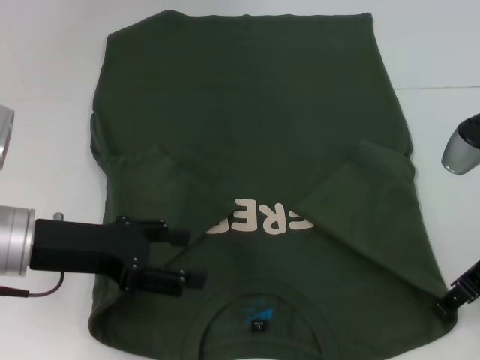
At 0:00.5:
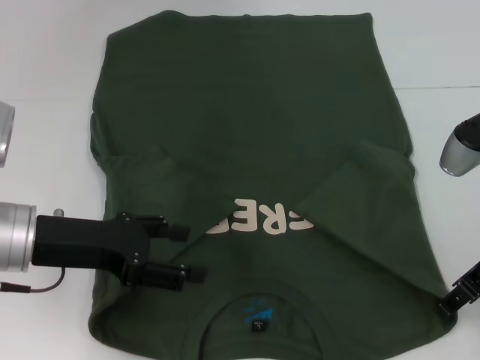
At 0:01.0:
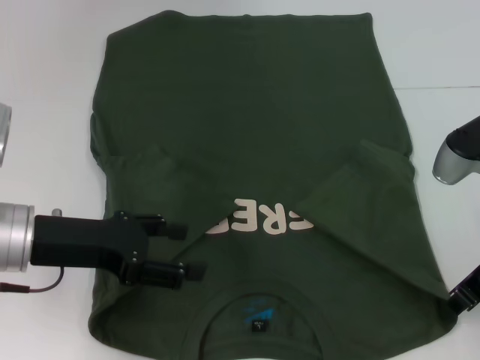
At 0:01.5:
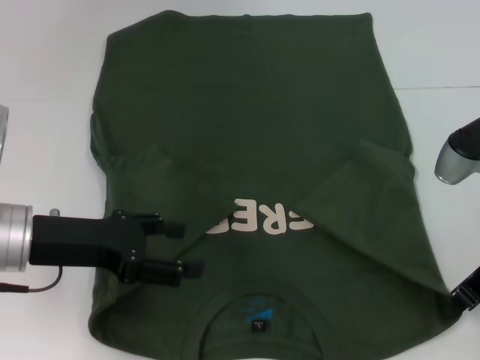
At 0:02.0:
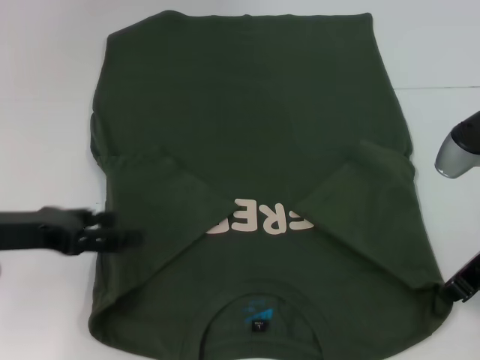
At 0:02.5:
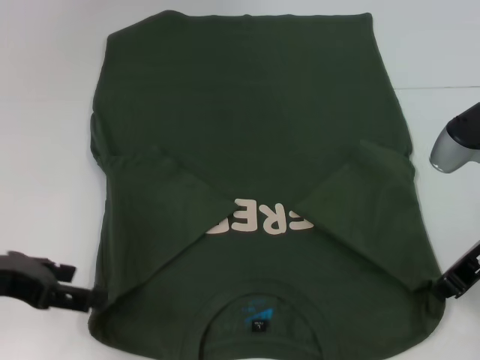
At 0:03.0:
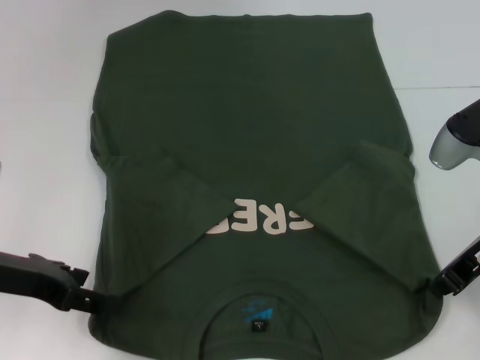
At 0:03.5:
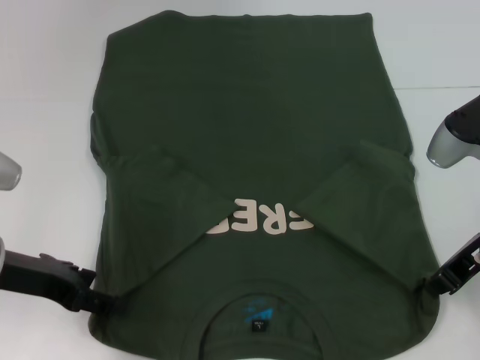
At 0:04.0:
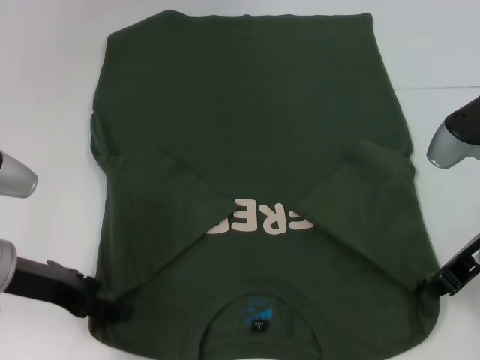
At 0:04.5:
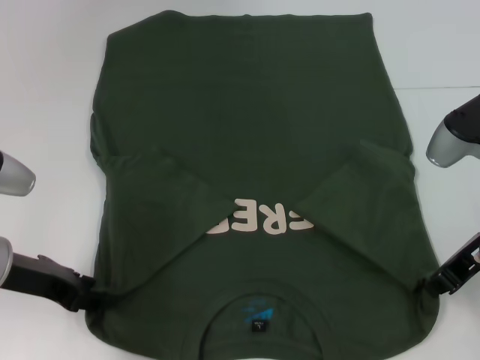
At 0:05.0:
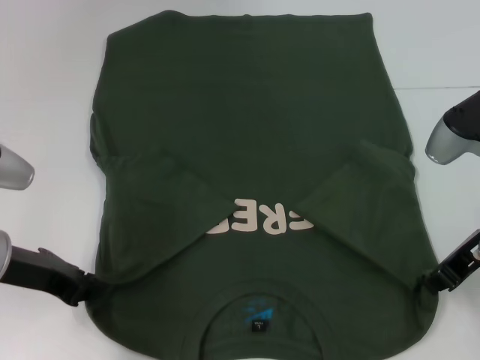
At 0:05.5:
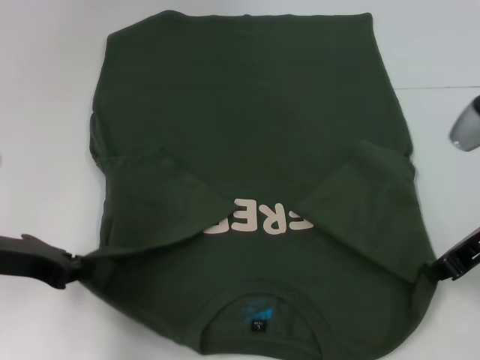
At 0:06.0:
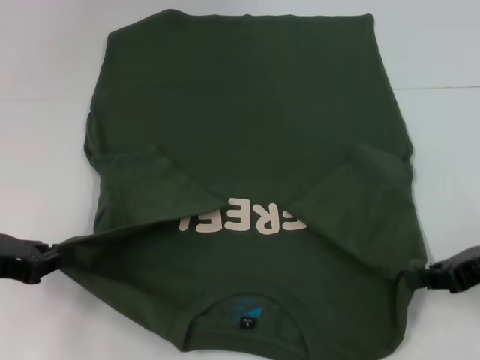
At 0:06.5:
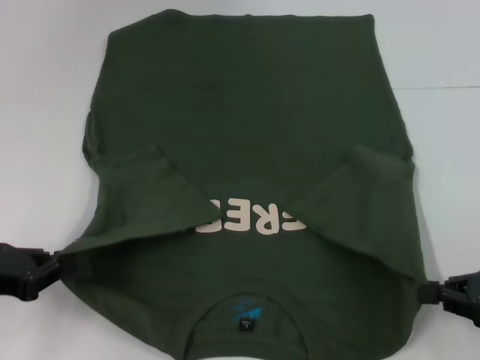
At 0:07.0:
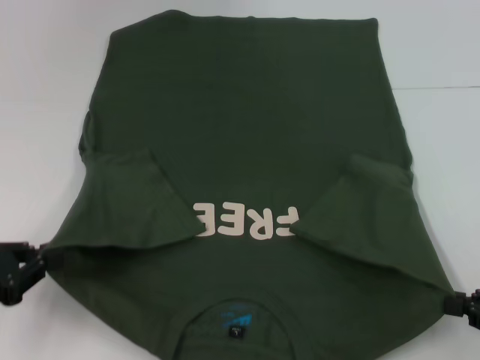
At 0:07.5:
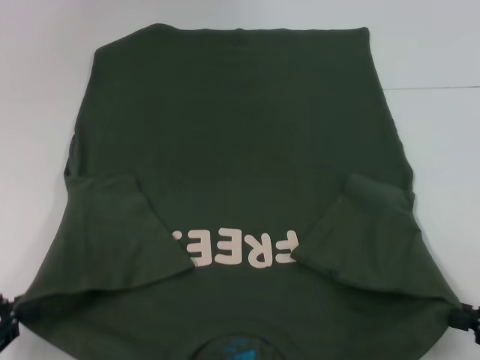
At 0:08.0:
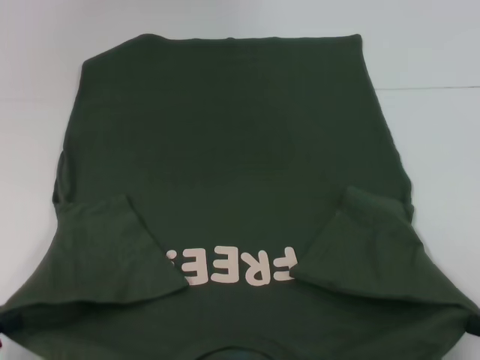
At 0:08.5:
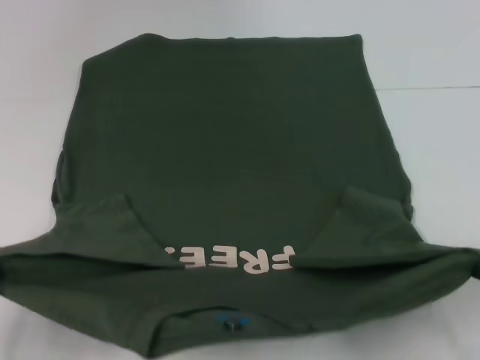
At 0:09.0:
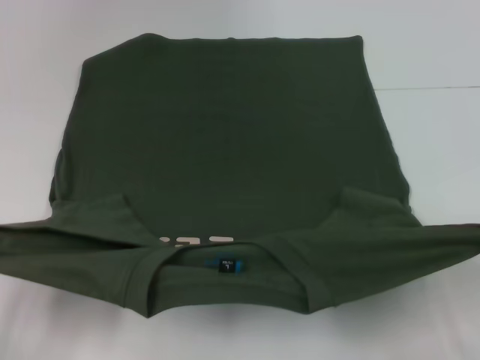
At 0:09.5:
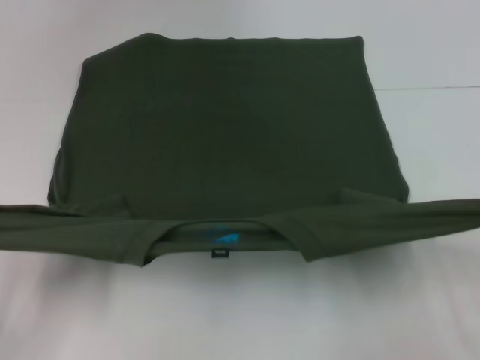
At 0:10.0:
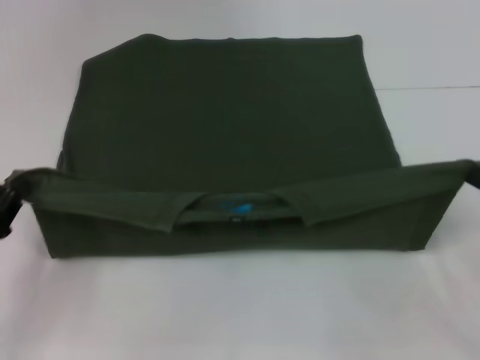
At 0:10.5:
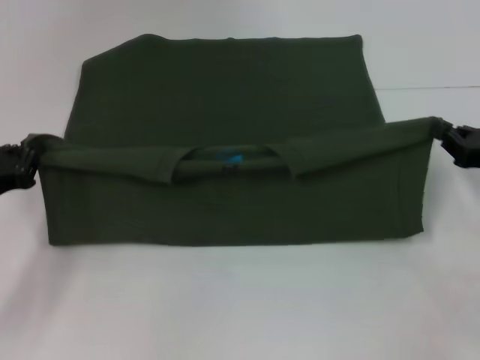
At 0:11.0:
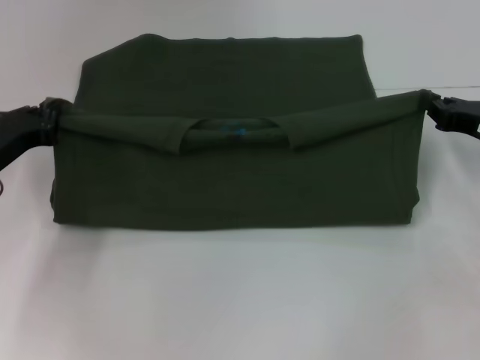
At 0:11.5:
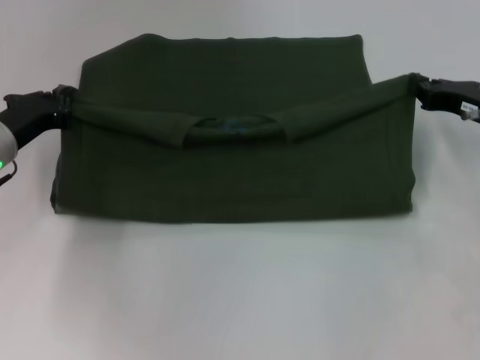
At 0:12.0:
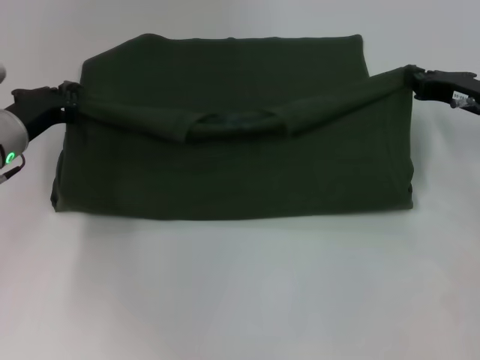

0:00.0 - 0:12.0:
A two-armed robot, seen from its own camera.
Step, 0:02.0 - 0:05.0: Grab the bottom left corner with your left hand.
0:00.0 - 0:02.0: The right gripper closes its fingers, while the left gripper shifts some 5 cm to the left.
0:04.0 - 0:06.0: The left gripper shifts about 5 cm to the left, and closes. Meanwhile the right gripper goes about 5 cm to the right.
0:06.0 - 0:08.0: The left gripper moves backward, about 15 cm, while the right gripper shifts some 15 cm backward and to the right.
0:08.0 - 0:10.0: The two grippers go about 10 cm forward.
0:10.0 - 0:12.0: The left gripper heads forward and to the right, covering approximately 20 cm, while the right gripper is displaced forward by roughly 15 cm.

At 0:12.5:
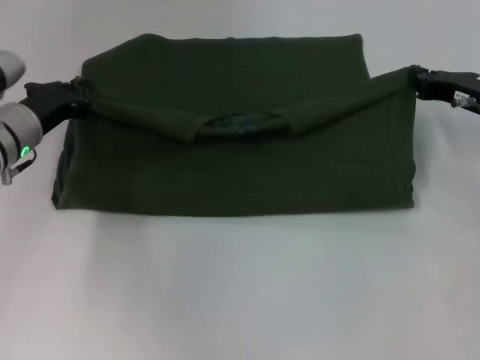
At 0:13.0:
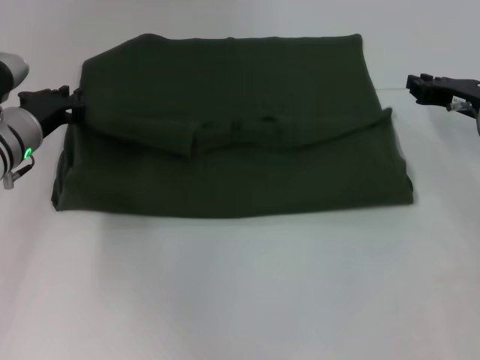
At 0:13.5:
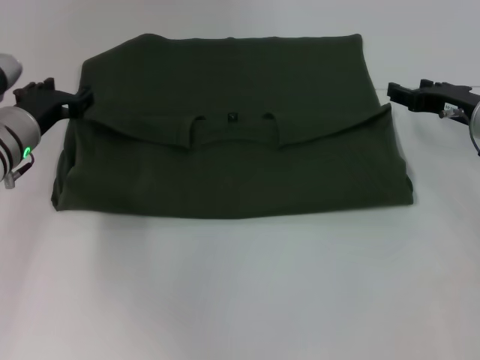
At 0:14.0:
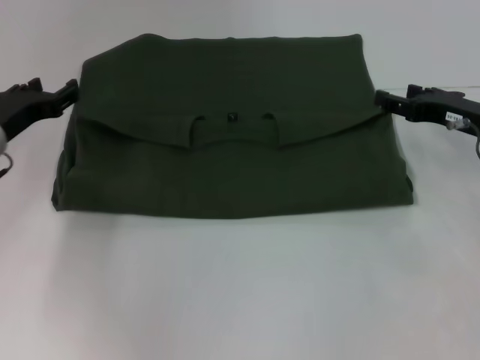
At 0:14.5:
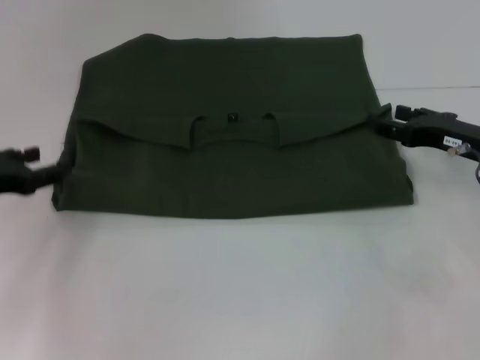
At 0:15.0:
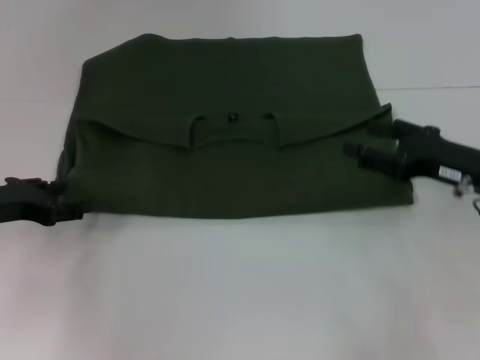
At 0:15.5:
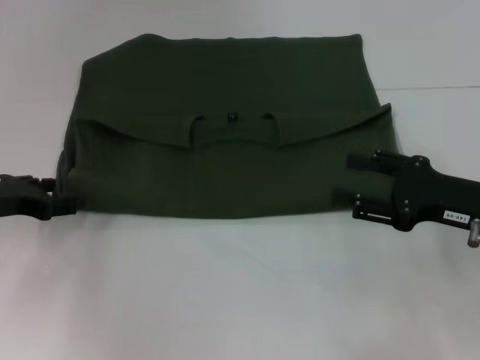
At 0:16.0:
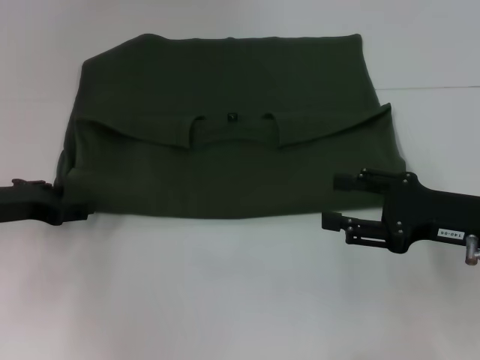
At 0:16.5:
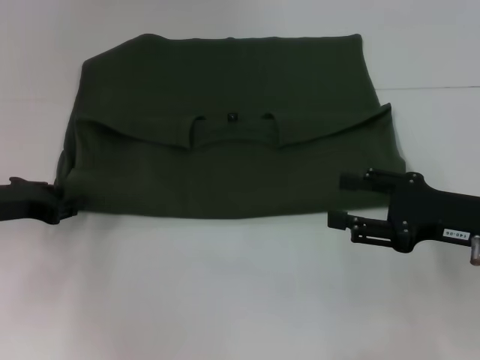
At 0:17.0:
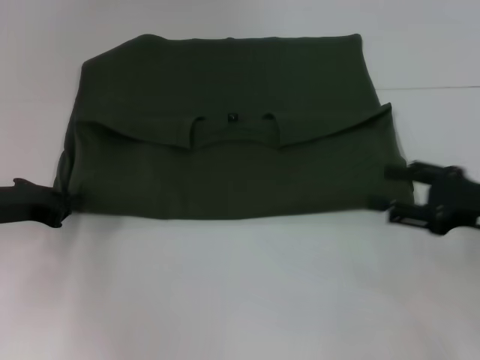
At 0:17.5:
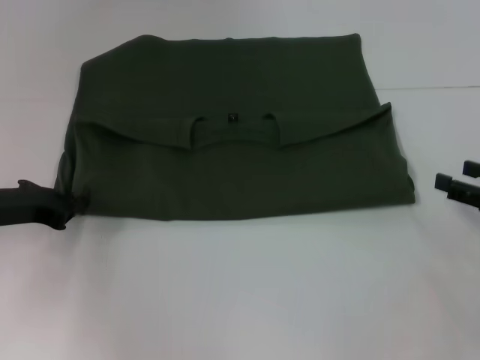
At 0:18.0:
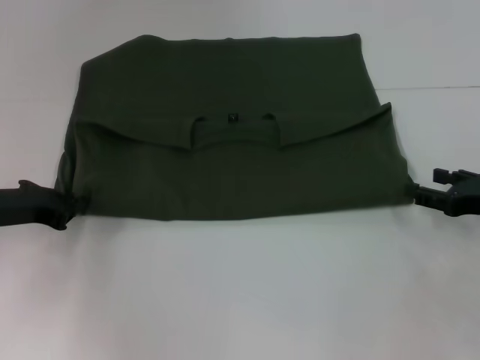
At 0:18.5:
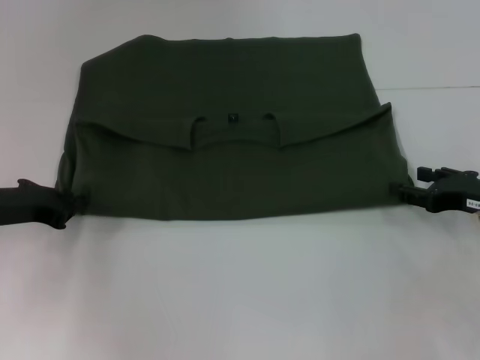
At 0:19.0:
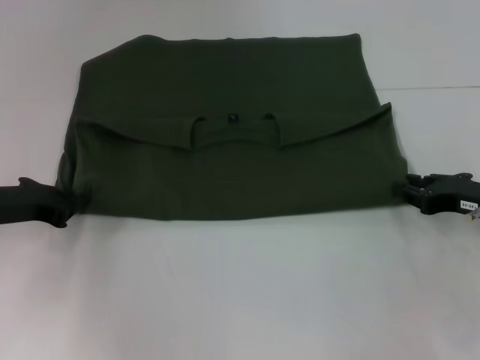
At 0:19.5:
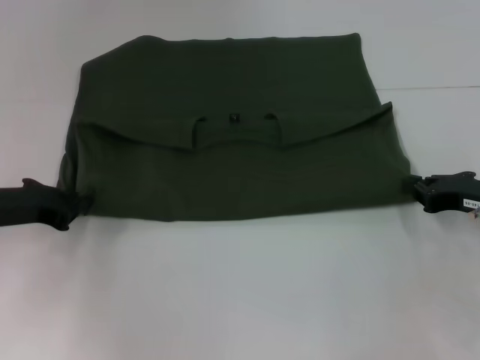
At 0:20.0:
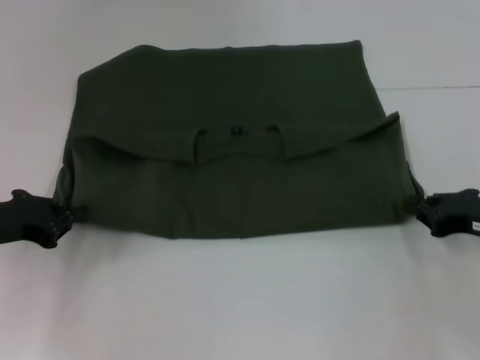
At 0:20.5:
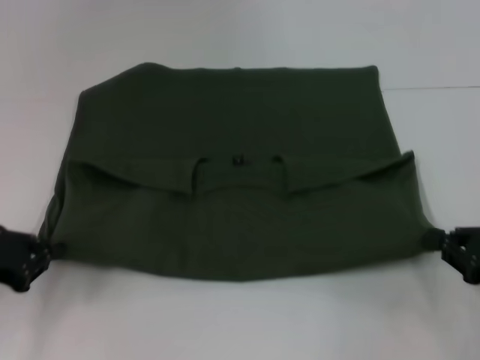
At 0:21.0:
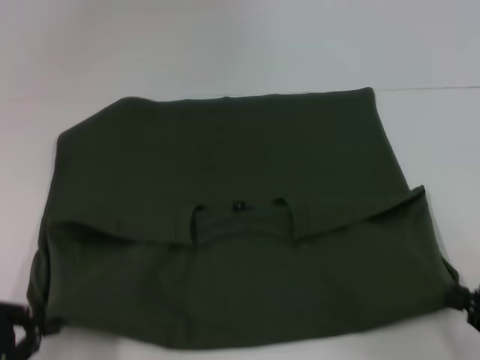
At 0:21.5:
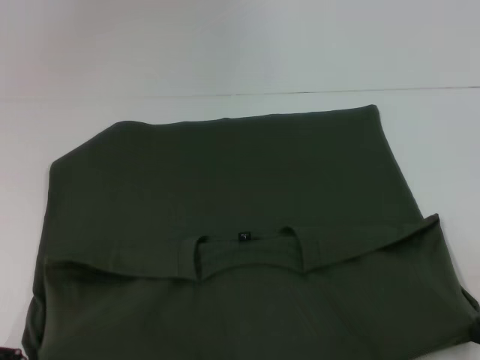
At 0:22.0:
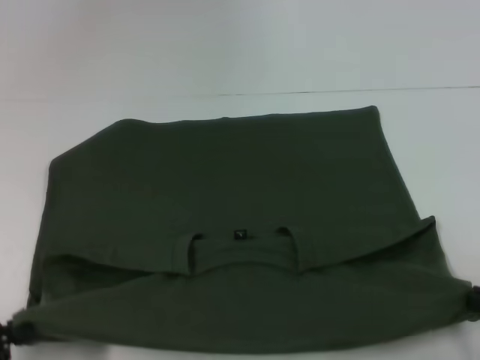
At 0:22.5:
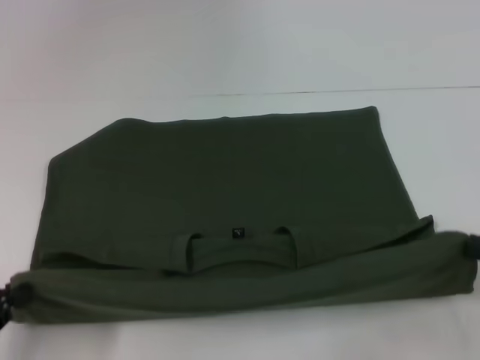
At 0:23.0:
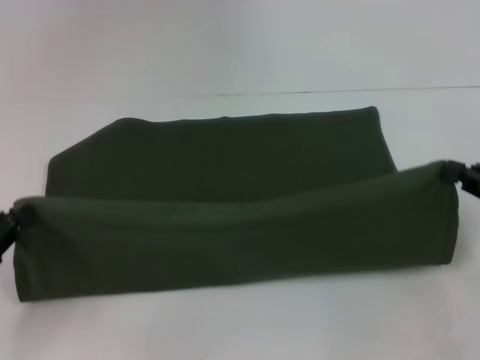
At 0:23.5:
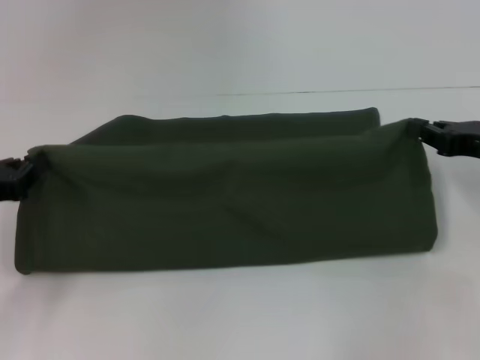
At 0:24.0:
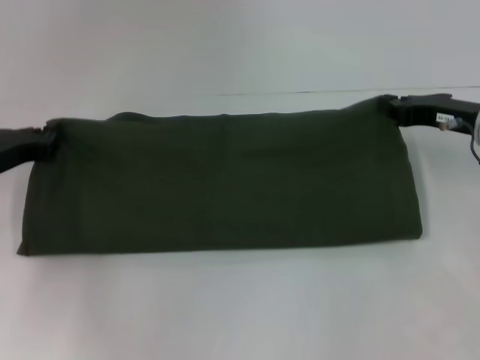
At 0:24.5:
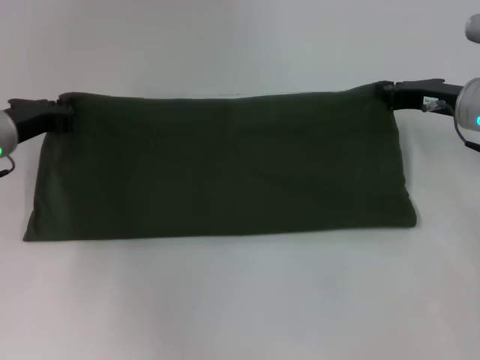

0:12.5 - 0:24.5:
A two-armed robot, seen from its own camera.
Step, 0:14.0 - 0:21.0: Pull the clothes with your left hand.
Step, 0:14.0 - 0:21.0: Pull the clothes with your right hand.
0:12.5 - 0:14.5: The right gripper opens. The left gripper shifts about 10 cm to the left and backward, and opens.
0:14.5 - 0:16.5: The right gripper goes some 10 cm backward.
0:16.5 - 0:18.5: The left gripper closes. Meanwhile the right gripper moves approximately 5 cm.
0:18.5 - 0:20.5: Both grippers move backward, some 10 cm. The right gripper closes up.
0:20.5 - 0:22.5: The left gripper goes roughly 10 cm backward, while the right gripper travels backward and back again, some 10 cm each way.
0:22.5 - 0:24.5: The right gripper heads forward and to the left, covering some 25 cm. Meanwhile the left gripper shifts roughly 25 cm forward.

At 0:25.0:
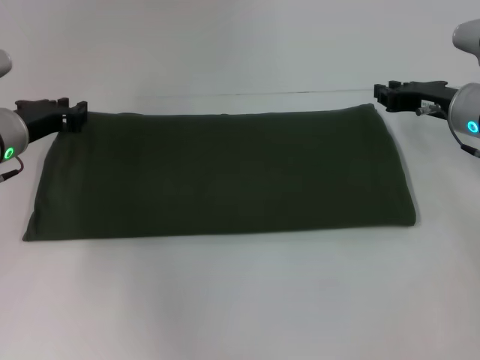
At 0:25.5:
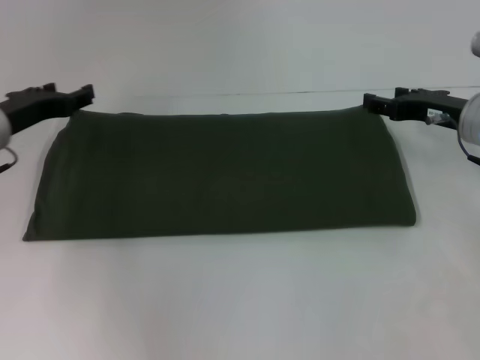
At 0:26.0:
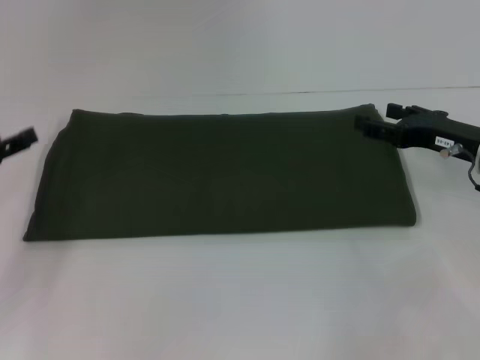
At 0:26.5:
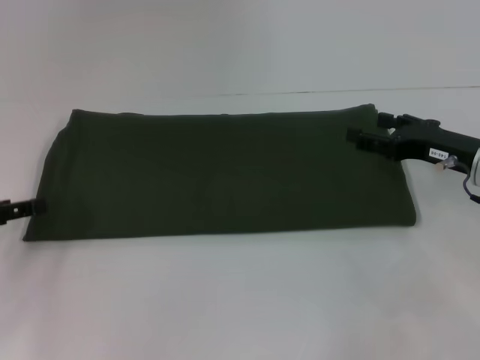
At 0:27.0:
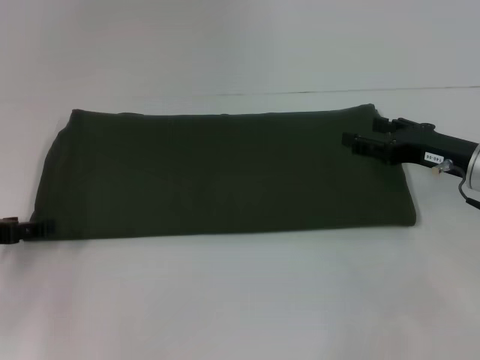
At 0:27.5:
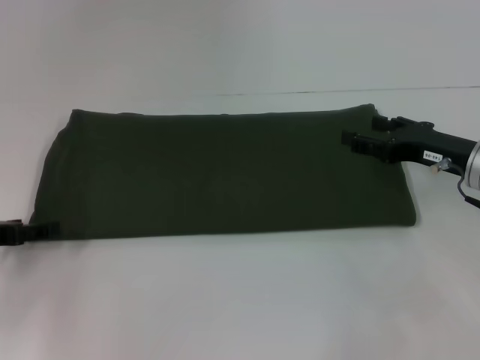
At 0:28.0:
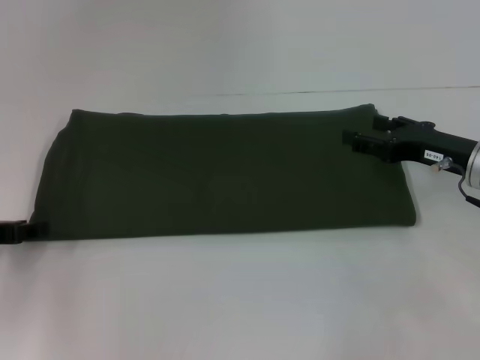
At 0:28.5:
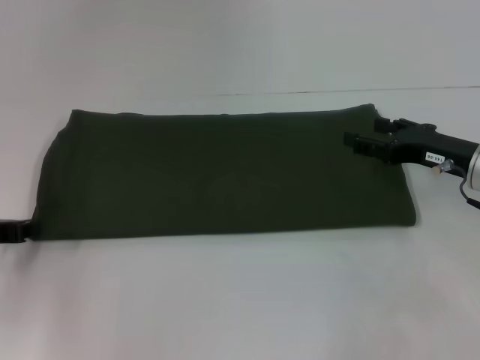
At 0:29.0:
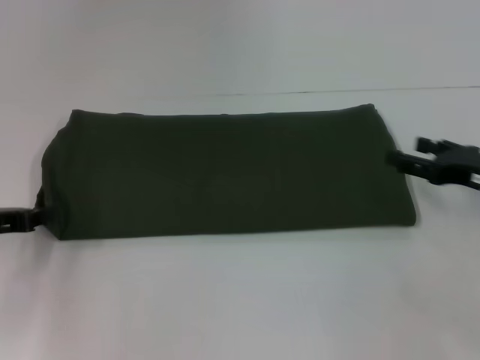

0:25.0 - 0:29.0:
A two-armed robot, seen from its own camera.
0:25.0 - 0:27.0: The right gripper heads backward, covering approximately 5 cm, and opens; the left gripper goes some 15 cm backward and to the left, and opens up.
0:27.0 - 0:29.0: The left gripper closes its fingers; the right gripper changes place by roughly 5 cm.
